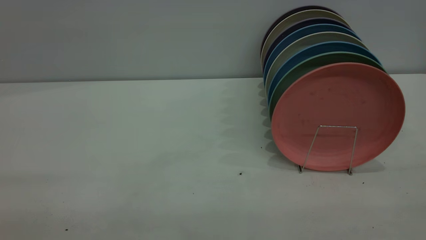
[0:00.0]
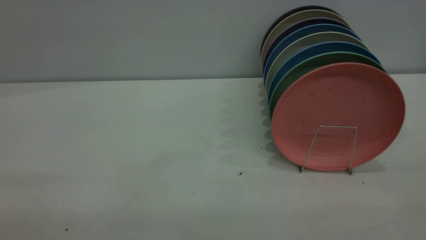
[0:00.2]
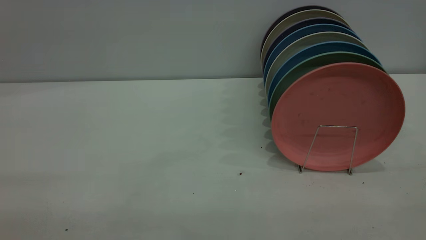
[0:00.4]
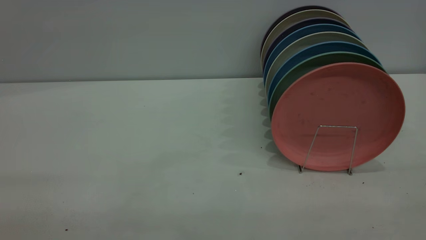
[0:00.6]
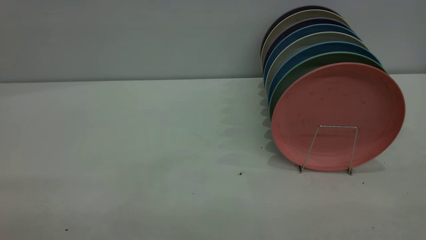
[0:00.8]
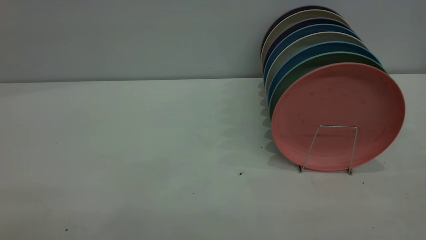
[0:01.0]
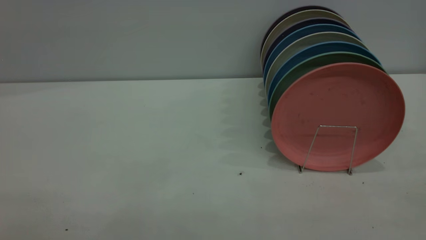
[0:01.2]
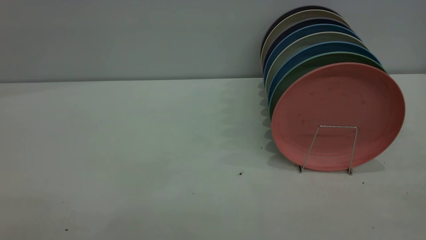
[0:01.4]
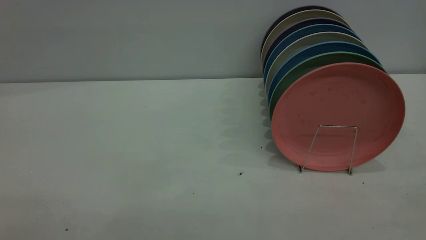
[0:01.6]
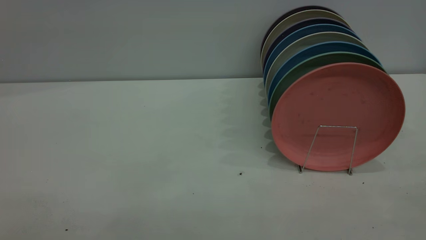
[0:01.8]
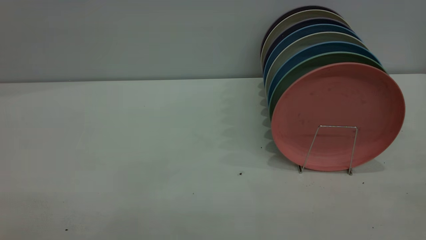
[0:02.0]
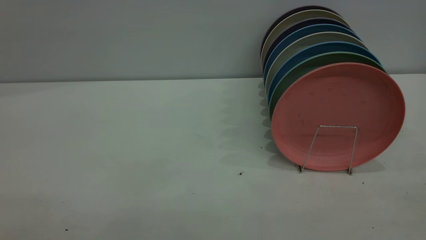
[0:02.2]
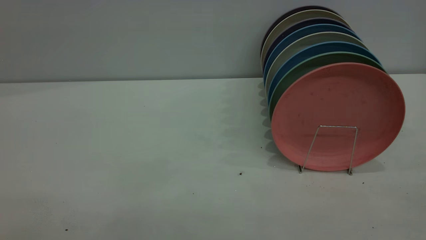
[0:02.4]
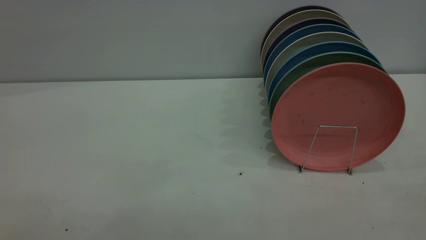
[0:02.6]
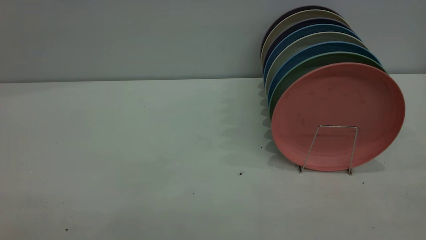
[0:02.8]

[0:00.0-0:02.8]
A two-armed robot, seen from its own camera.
Task of the whole recording: put the plate on the plate rack.
0:01.4 to 0:02.8: Both grippers stay about where they are.

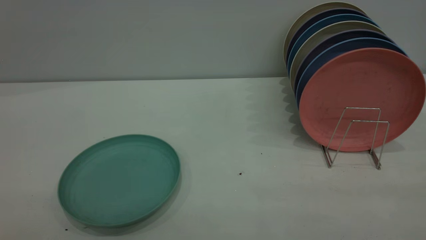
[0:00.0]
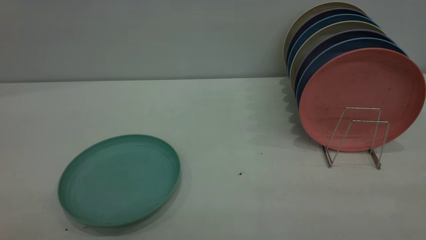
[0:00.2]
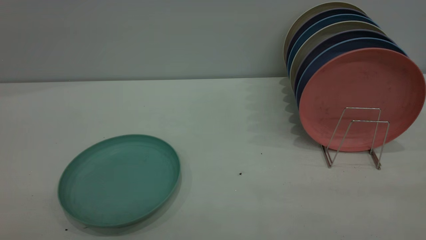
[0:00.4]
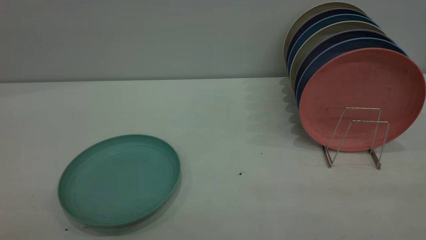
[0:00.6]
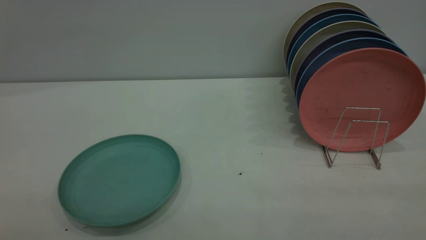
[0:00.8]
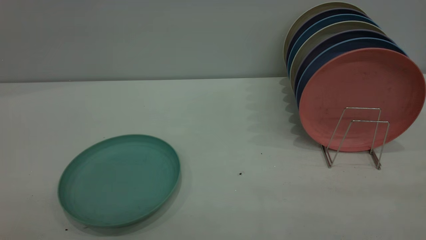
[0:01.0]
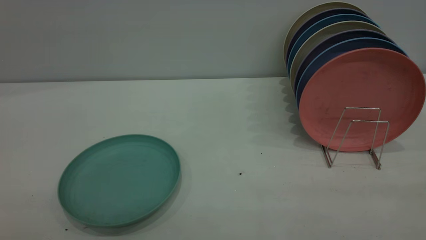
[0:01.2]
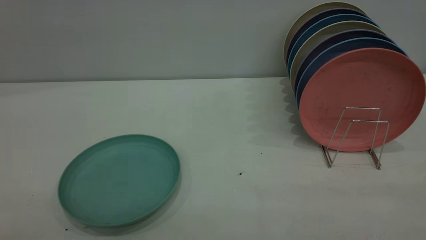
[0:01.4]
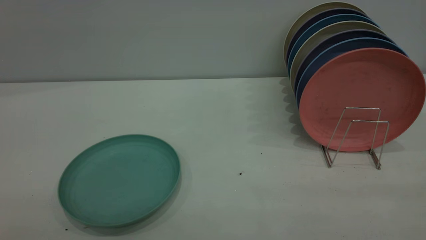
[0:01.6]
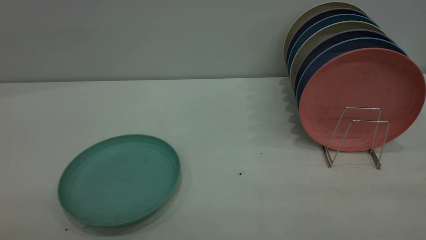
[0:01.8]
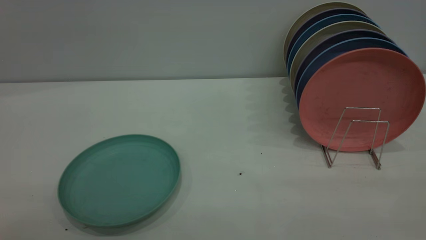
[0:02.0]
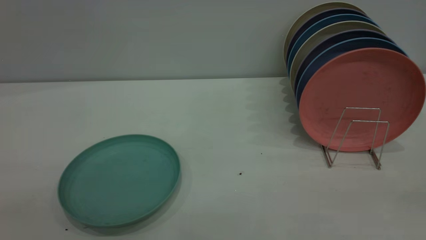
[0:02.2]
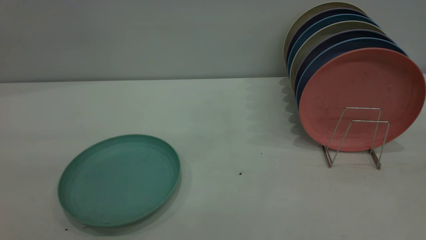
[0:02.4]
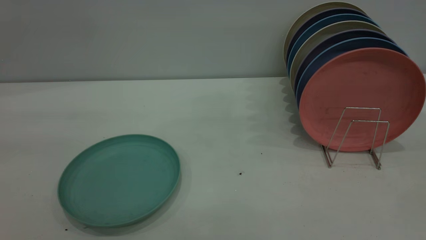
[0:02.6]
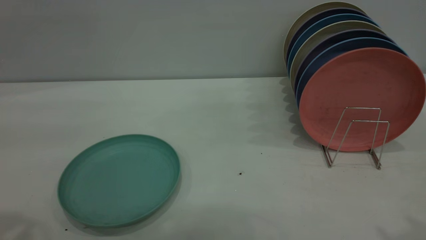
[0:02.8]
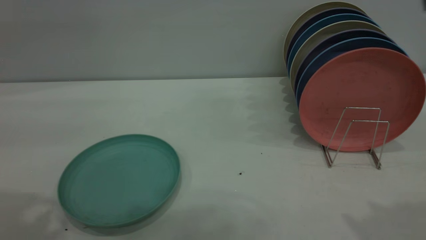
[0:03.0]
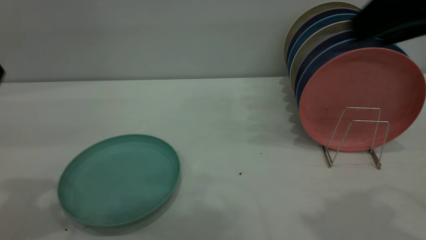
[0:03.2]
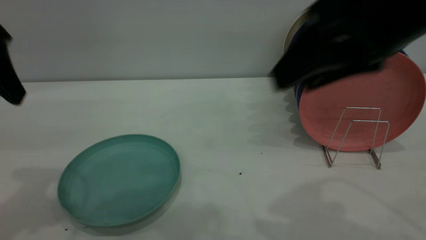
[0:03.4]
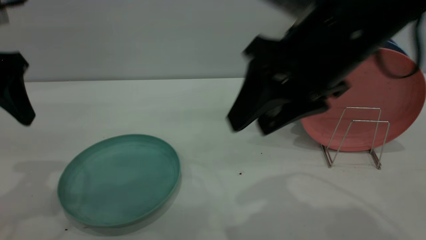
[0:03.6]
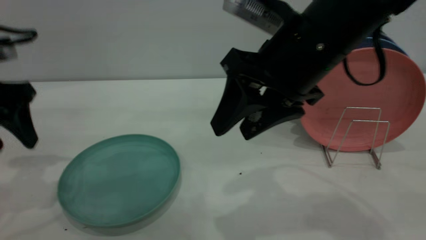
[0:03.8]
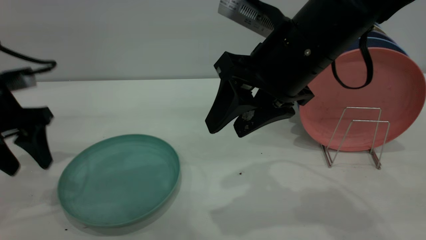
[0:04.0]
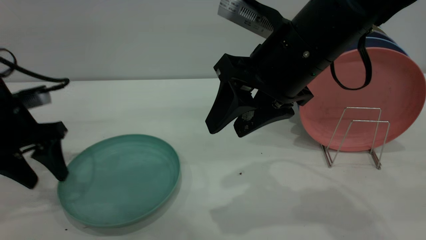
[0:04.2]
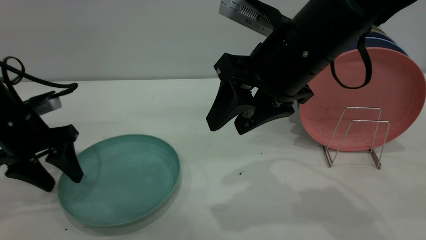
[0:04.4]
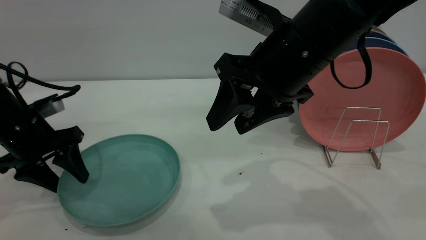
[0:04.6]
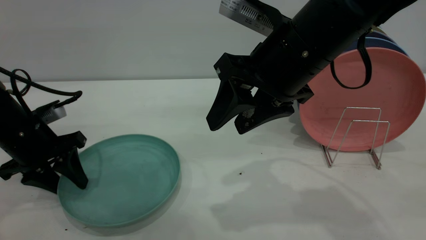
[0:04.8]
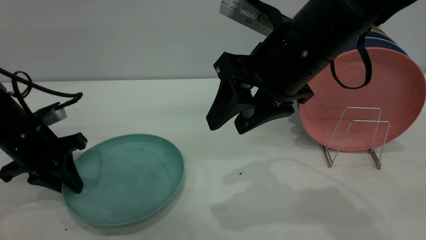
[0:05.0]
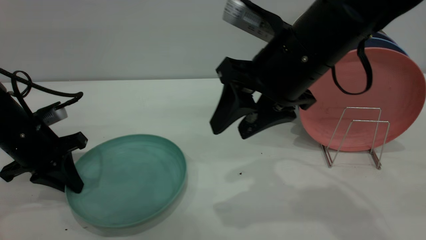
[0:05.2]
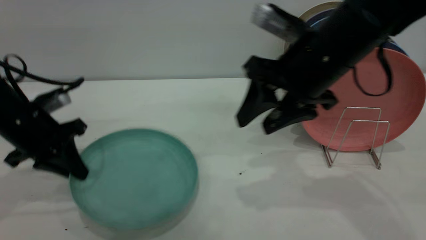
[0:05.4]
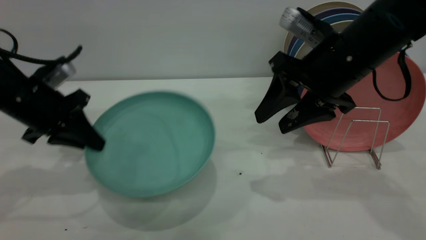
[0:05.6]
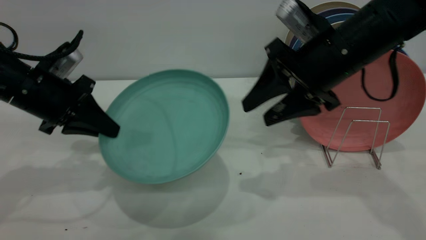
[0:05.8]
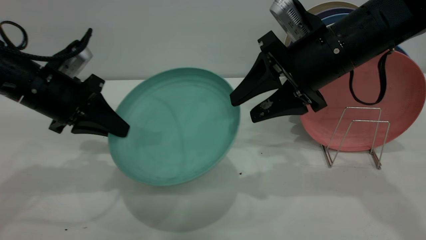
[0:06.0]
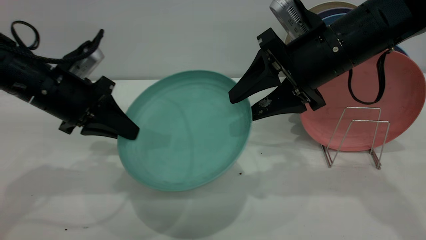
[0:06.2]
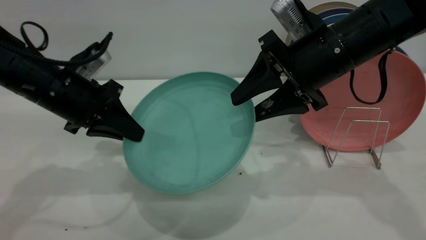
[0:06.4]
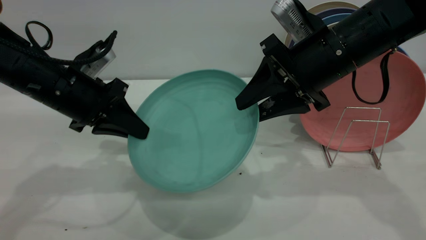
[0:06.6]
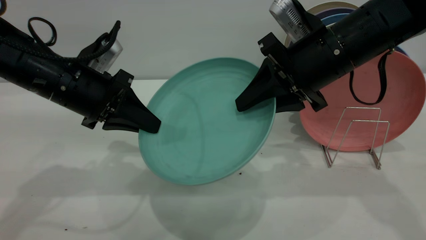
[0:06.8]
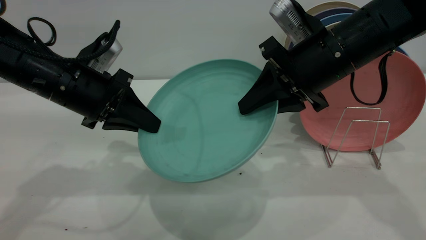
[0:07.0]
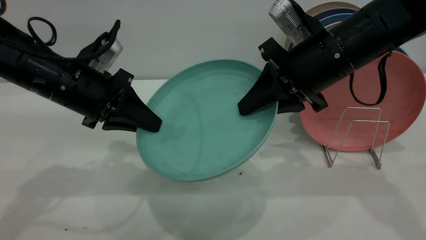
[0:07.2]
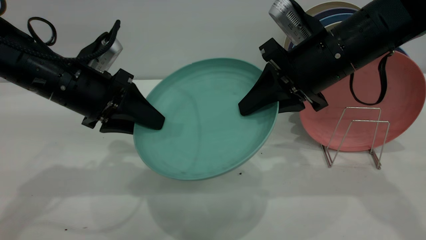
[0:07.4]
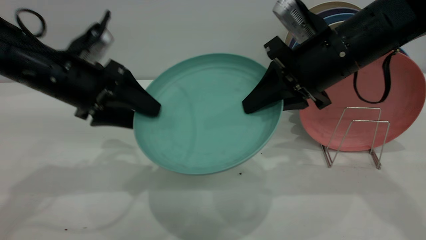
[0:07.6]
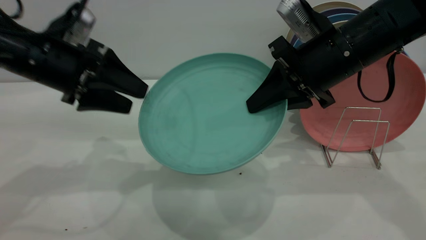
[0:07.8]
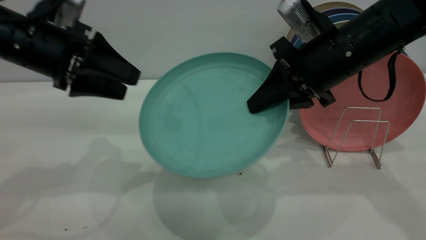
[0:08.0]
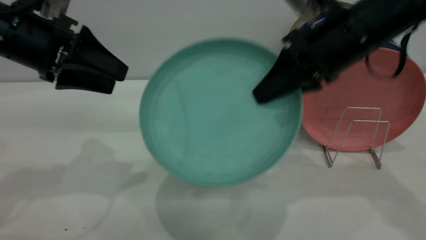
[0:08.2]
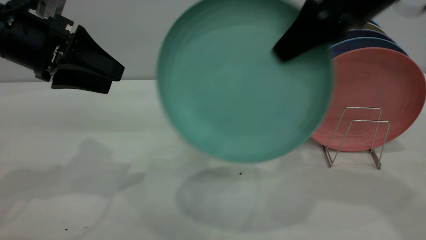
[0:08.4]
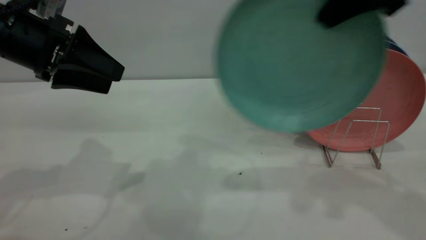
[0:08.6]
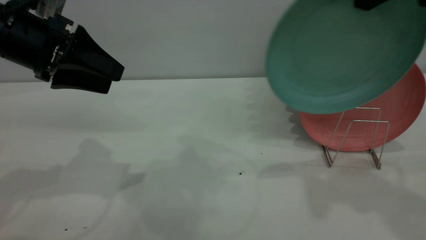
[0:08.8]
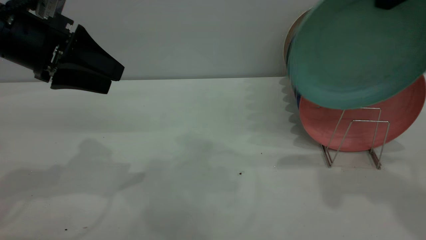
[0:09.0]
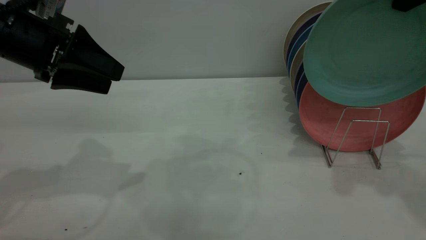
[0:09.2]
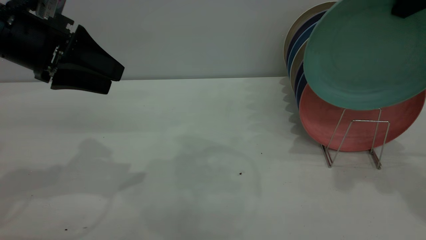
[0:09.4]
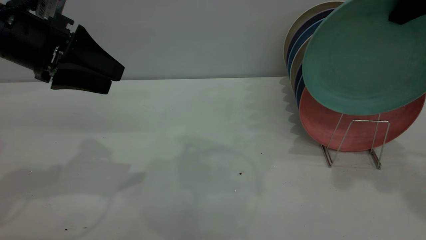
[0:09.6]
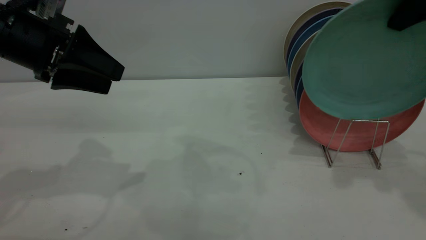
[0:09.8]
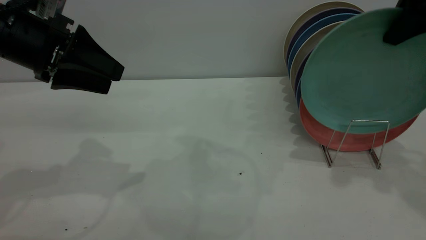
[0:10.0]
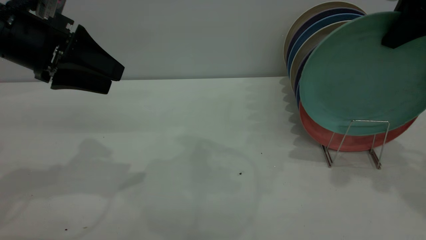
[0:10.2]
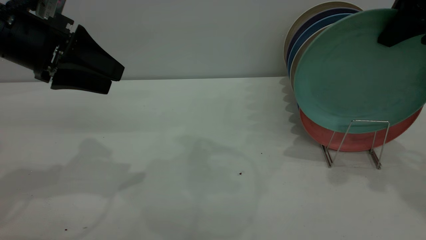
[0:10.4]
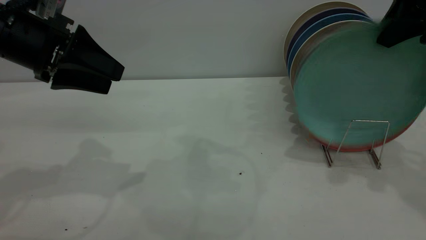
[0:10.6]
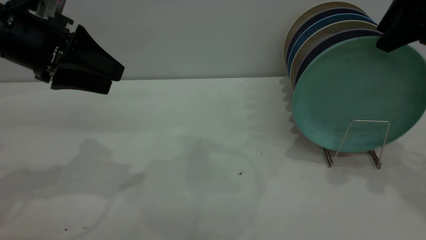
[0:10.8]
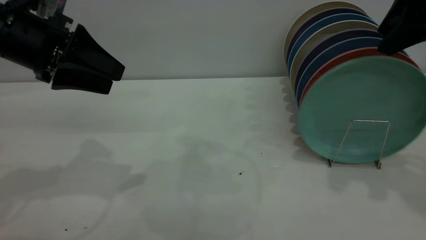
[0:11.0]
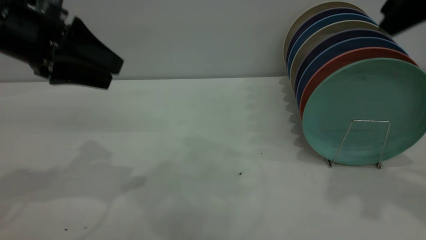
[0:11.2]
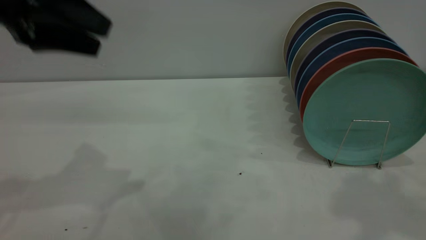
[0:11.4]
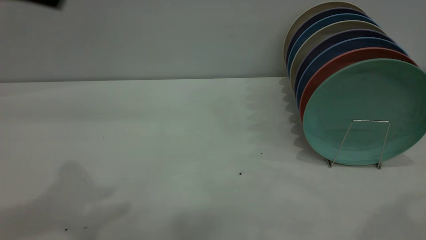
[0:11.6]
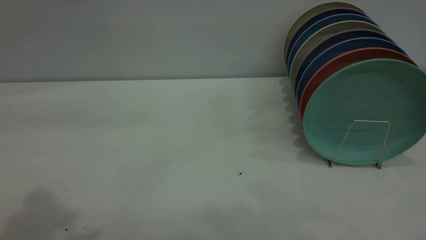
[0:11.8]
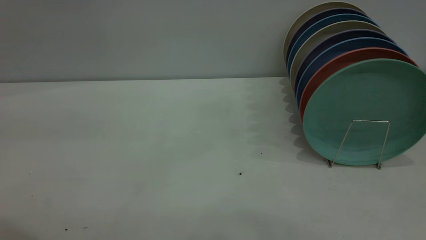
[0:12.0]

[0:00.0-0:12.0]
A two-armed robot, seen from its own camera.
Task of the whole recording: the left gripper grasp the green plate, the left gripper pass the green plate to the right gripper, and the right gripper place the green plate on the plate rack.
Step, 0:00.0 to 0:05.6: Pick up the plate with the left gripper.
Step, 0:05.8 to 0:08.0: Pass the plate from the left gripper to the right gripper.
Step, 0:08.4 to 0:11.2: Place the plate on the shelf.
0:00.0 to 0:01.6: The two grippers keep their place.
0:03.0 to 0:04.4: The right gripper moves to the left, downward and forward, approximately 20 cm; the left gripper moves downward and forward, approximately 25 cm.
0:04.4 to 0:06.0: Both grippers move to the right, some 5 cm. The left gripper closes.
0:06.0 to 0:07.6: The left gripper opens its fingers, while the right gripper closes.
0:07.6 to 0:09.0: The right gripper is displaced upward and to the right by approximately 20 cm. Meanwhile the left gripper travels upward by some 5 cm.
0:09.0 to 0:10.4: The right gripper shifts some 5 cm downward.
0:10.4 to 0:12.0: The right gripper shifts roughly 30 cm backward and upward, and opens up. The left gripper heads upward and backward, covering approximately 30 cm.
